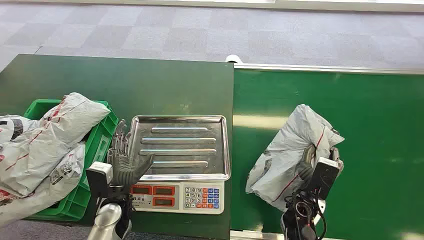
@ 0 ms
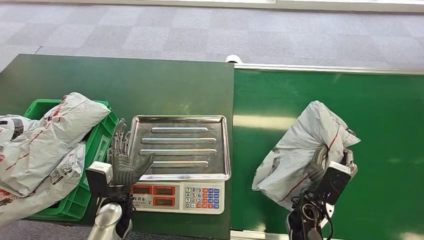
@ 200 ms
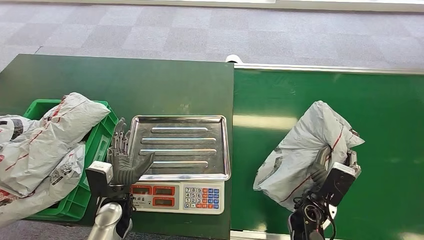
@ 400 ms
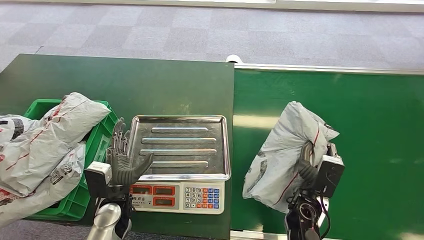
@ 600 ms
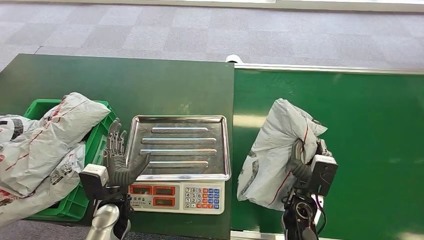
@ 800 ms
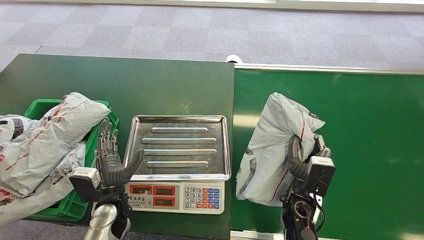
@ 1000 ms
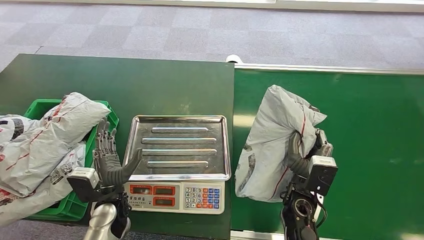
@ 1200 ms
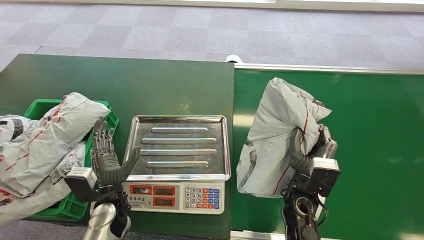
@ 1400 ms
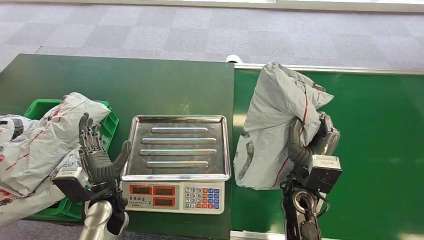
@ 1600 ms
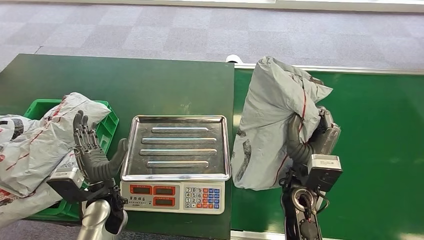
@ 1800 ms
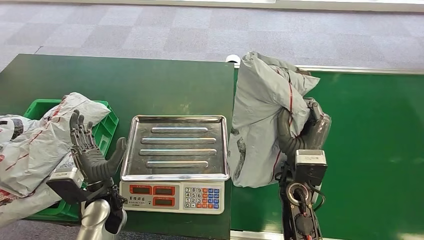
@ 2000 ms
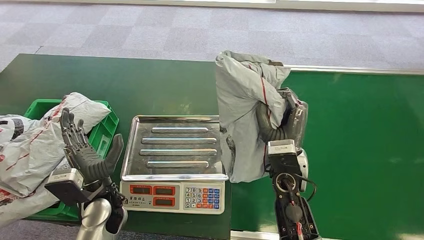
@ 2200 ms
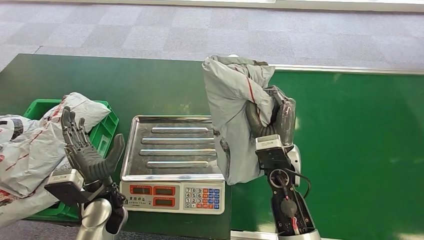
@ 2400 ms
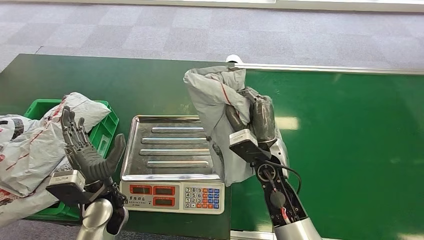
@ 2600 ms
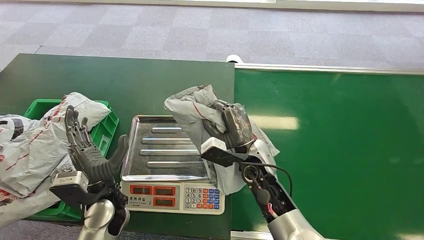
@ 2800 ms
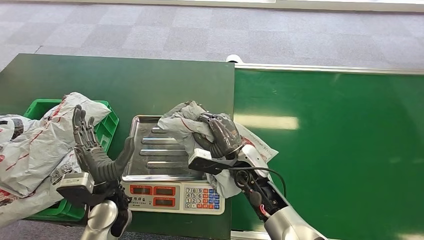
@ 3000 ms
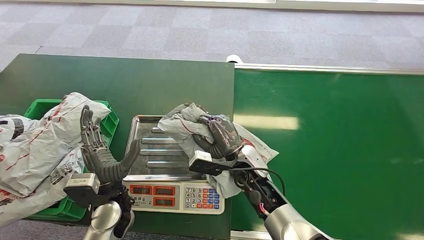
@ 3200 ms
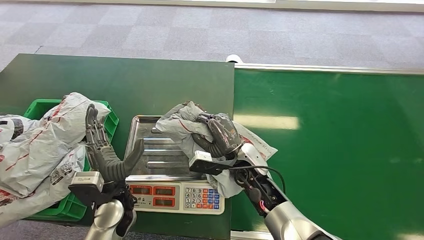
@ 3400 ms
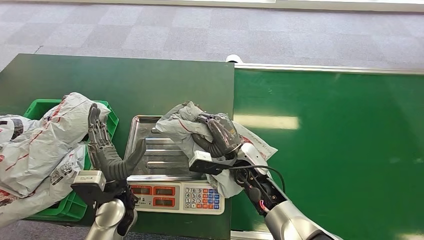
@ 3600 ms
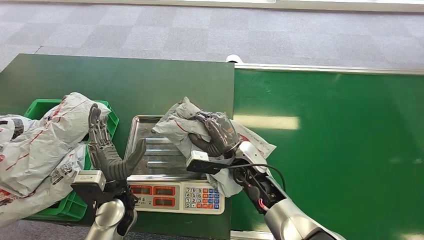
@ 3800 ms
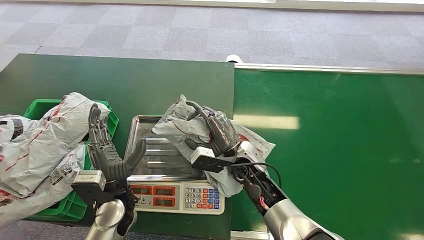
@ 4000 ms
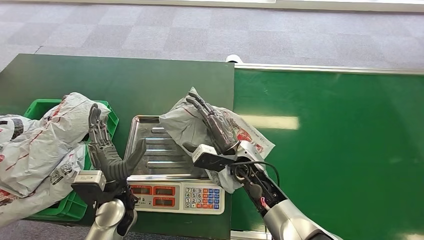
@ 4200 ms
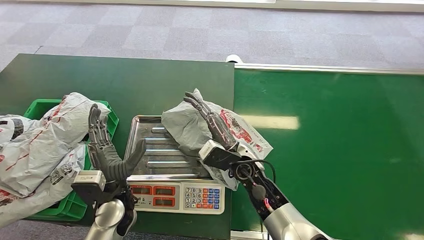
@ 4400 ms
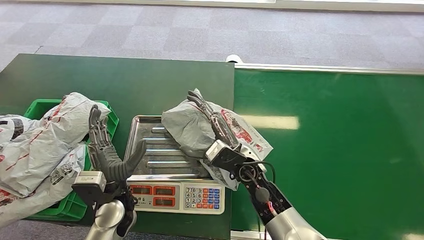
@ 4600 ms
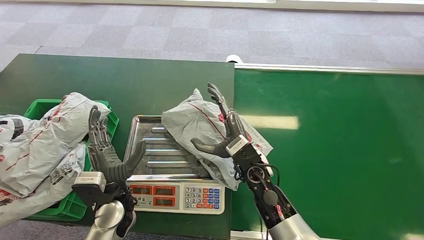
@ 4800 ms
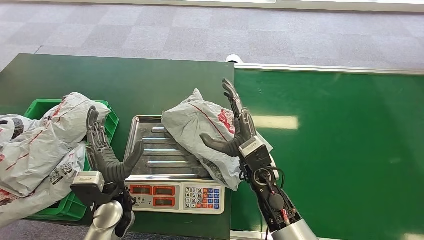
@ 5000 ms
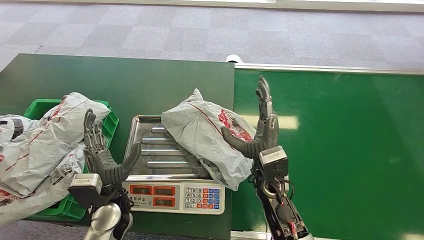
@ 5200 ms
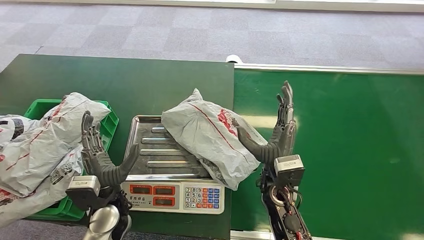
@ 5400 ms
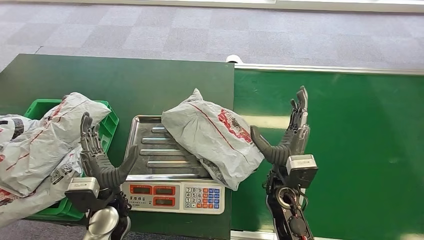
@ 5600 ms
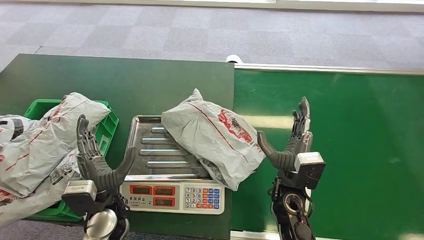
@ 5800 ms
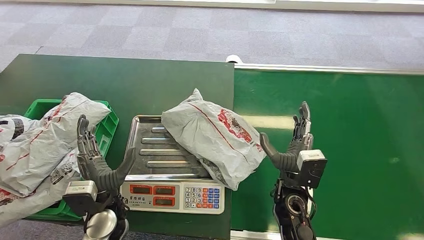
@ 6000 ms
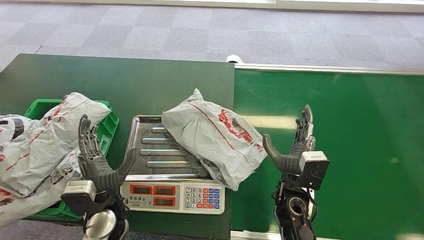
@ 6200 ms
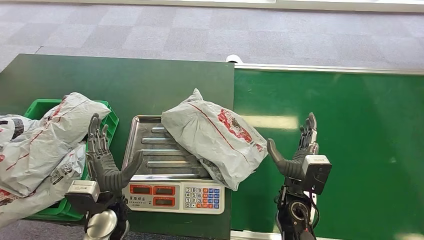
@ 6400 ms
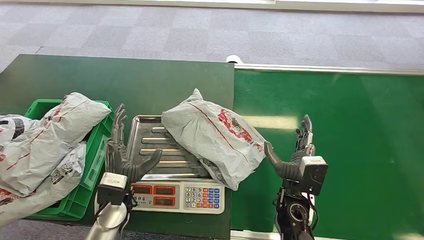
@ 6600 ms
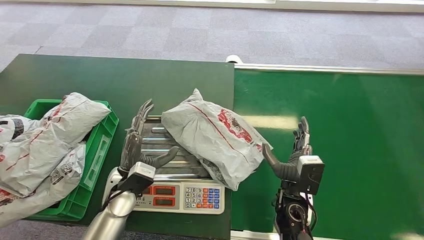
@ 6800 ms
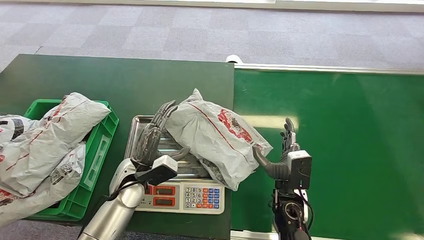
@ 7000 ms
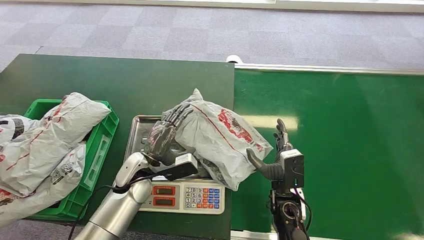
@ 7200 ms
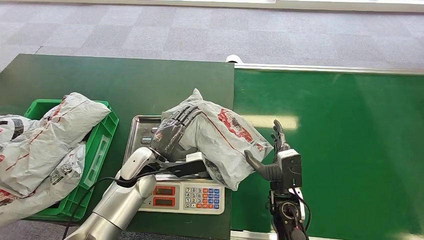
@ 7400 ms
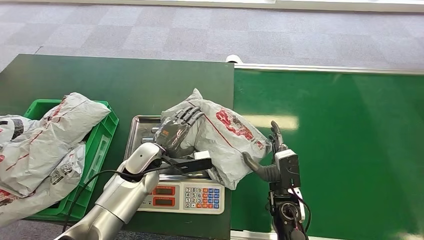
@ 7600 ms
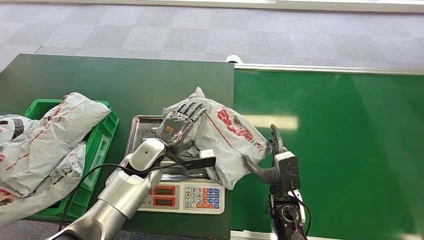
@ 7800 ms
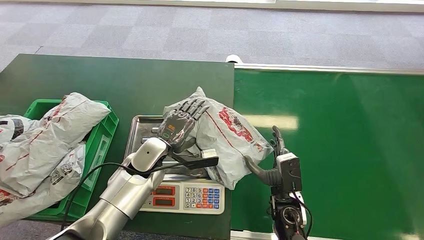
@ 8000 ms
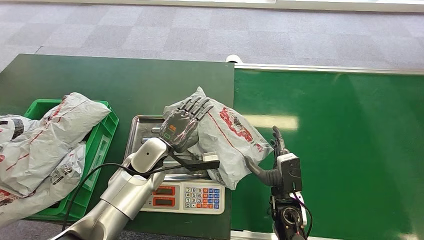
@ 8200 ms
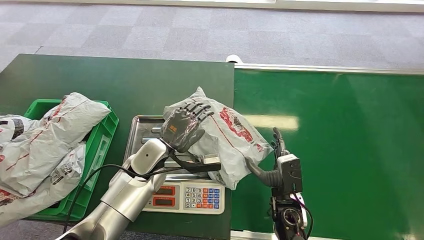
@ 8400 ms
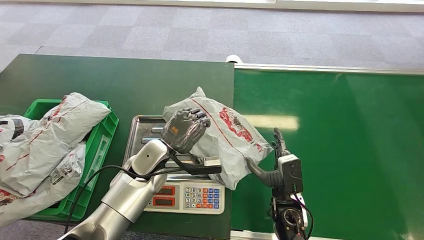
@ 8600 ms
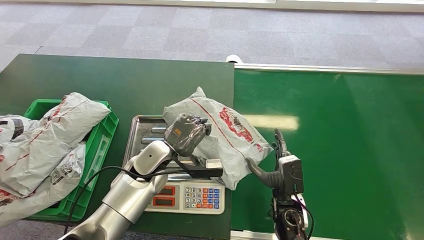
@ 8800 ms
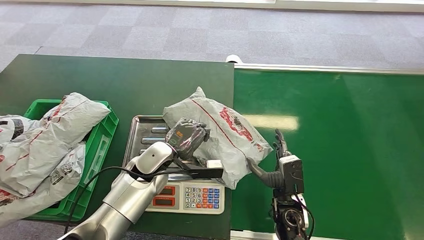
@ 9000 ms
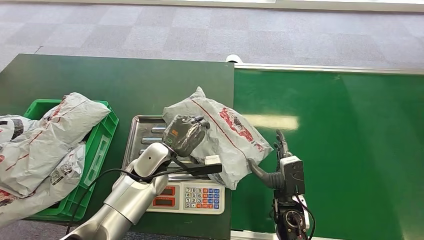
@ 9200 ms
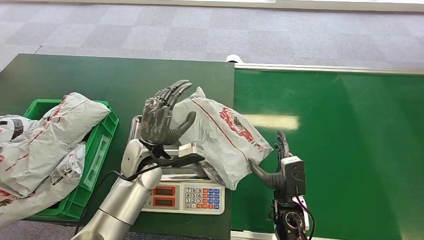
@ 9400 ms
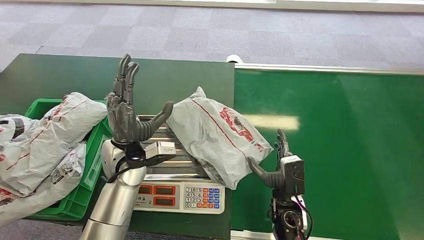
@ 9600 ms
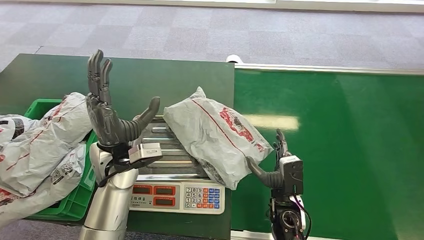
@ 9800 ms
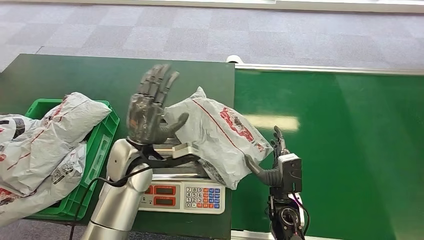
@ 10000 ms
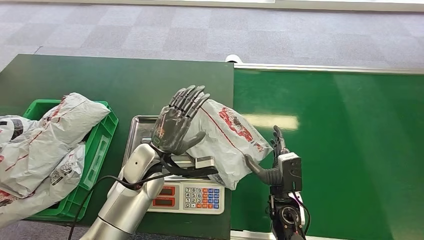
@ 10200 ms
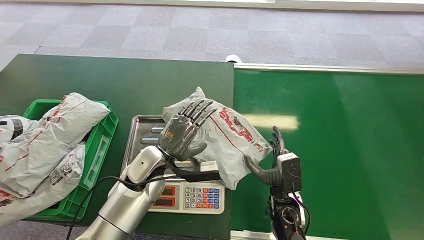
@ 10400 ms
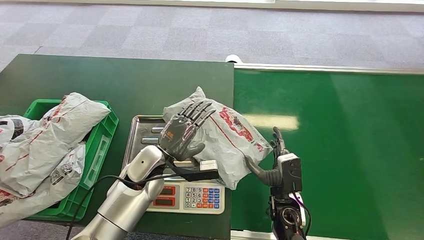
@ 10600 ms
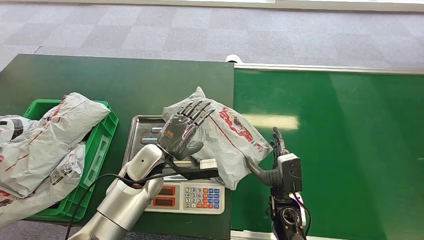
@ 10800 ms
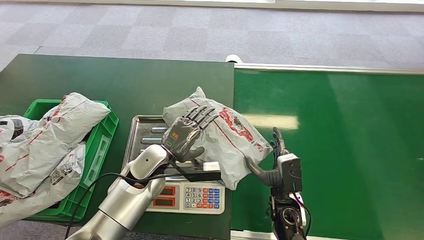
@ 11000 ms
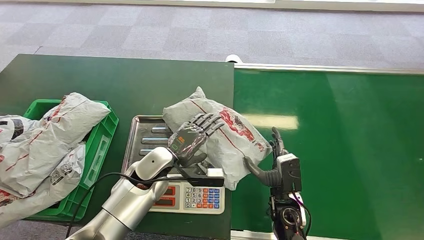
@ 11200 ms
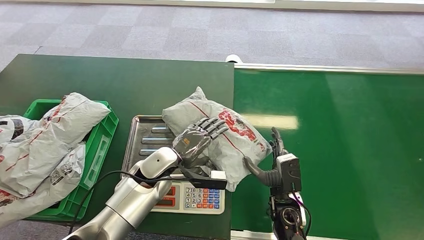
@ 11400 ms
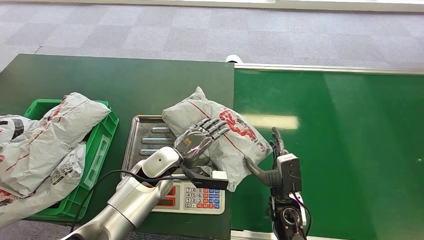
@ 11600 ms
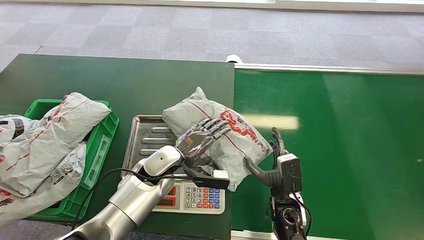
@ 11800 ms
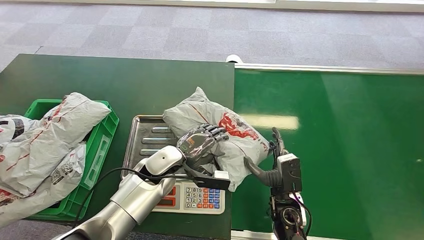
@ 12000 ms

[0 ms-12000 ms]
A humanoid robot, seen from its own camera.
Step, 0 ms to 1400 ms: Pick up the package from the conveyor belt.
Step, 1600 ms to 5200 ms: Place the package onto the inbound machine.
1600 ms to 3000 ms: The right hand is displaced to the left and forward by approximately 10 cm.
4400 ms to 6000 ms: The right hand travels to the right and backward by approximately 10 cm.
6000 ms to 7600 ms: The left hand is displaced forward and to the right by roughly 15 cm.
7600 ms to 9000 ms: There are only small adjustments of the hands.
9000 ms to 10400 ms: The left hand travels upward and back again, about 10 cm each way.

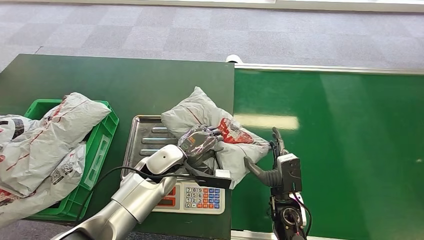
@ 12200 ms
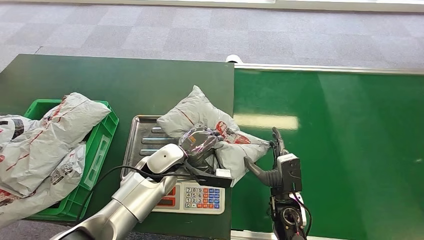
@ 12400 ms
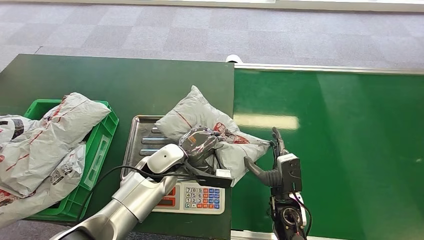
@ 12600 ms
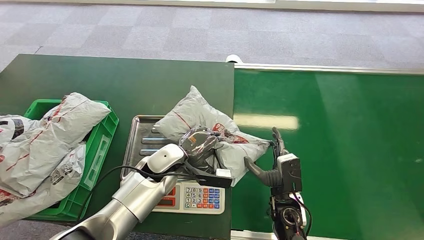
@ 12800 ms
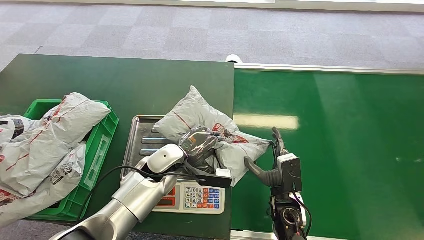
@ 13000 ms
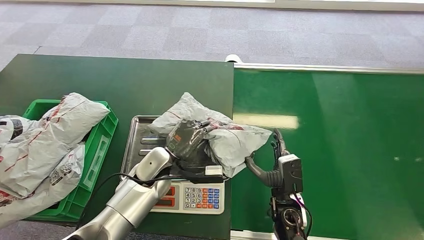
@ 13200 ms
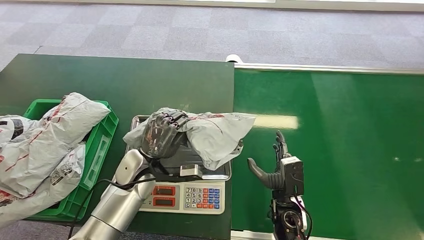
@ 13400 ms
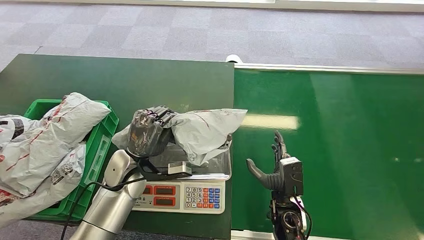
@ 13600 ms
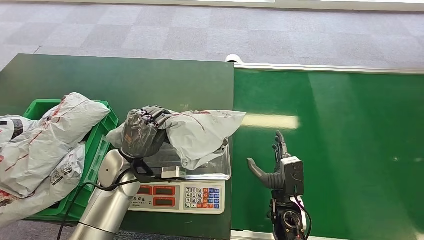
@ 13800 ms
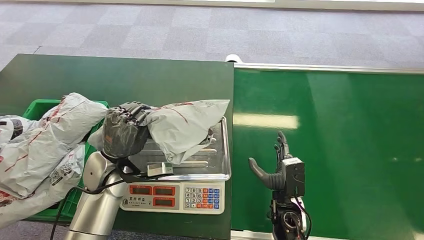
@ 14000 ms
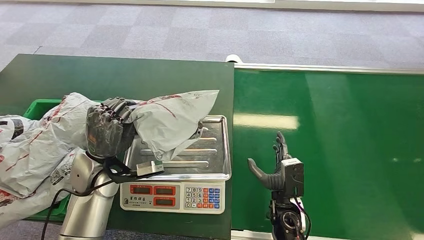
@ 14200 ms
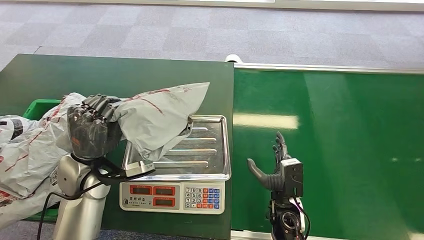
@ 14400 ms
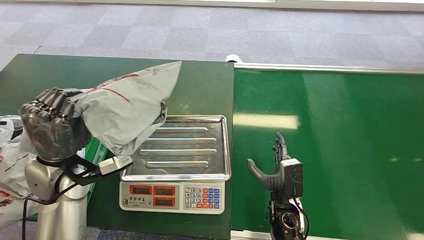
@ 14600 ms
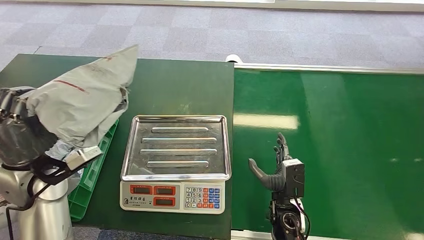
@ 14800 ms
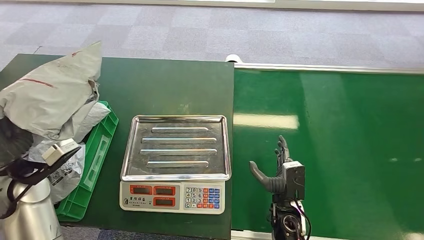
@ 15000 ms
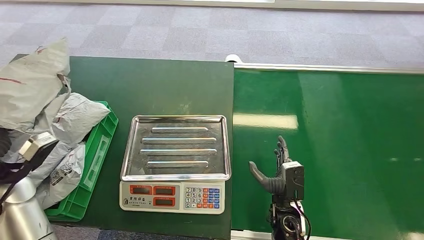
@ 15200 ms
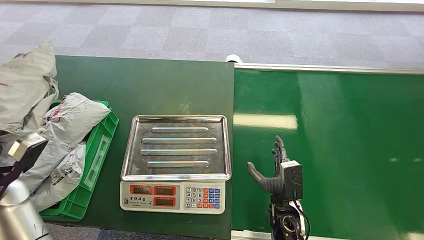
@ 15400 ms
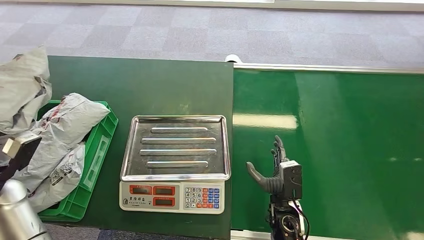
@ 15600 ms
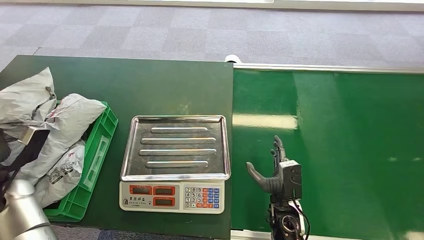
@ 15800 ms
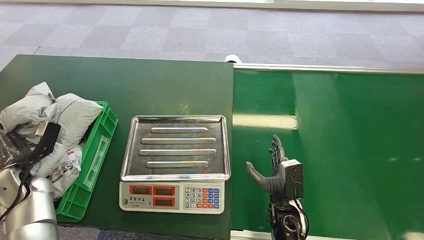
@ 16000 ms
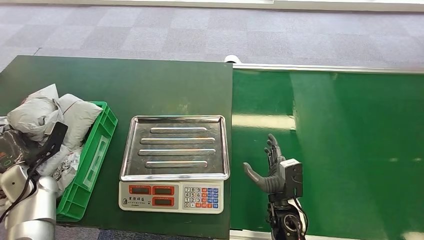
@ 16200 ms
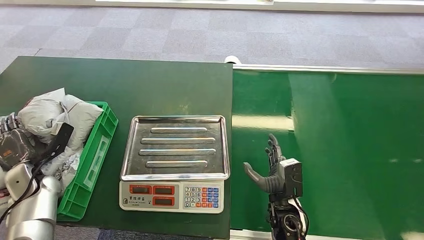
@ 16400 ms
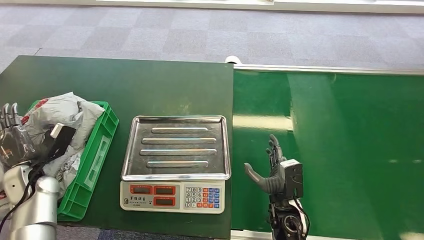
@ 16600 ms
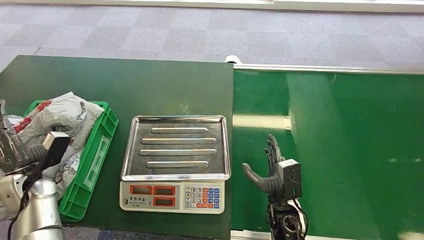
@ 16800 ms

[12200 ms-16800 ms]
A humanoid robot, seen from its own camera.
Step, 12200 ms to 14200 ms: Pick up the package from the inbound machine.
Step, 14400 ms to 16800 ms: Place the package into the parcel locker.
12200 ms to 13800 ms: The left hand heads to the left, covering approximately 10 cm.
15200 ms to 16800 ms: The left hand travels downward by some 10 cm.
